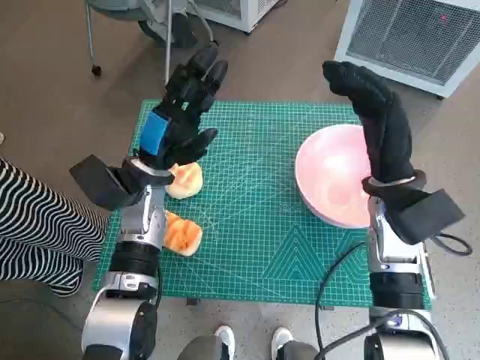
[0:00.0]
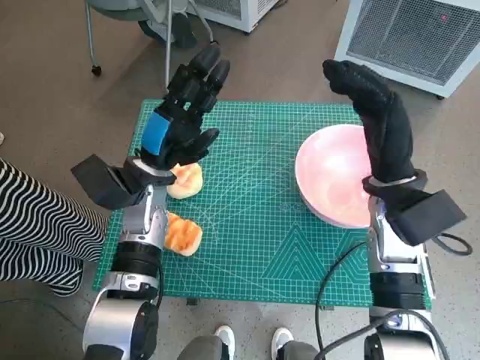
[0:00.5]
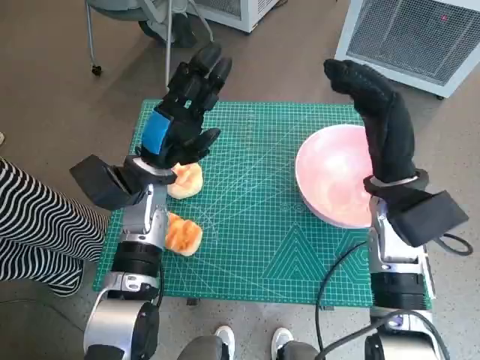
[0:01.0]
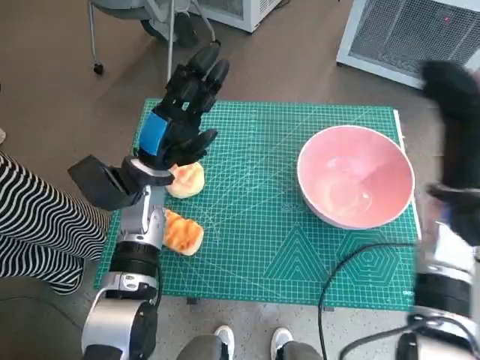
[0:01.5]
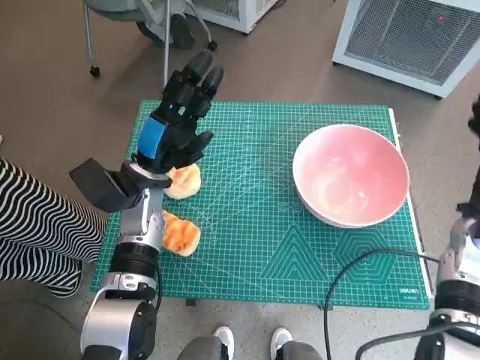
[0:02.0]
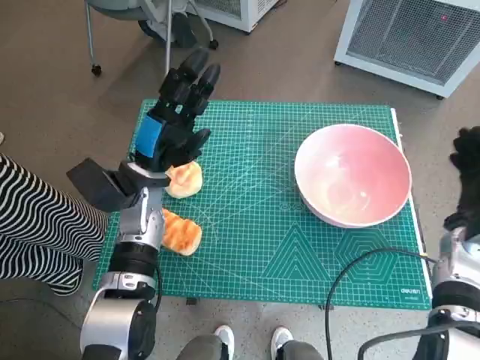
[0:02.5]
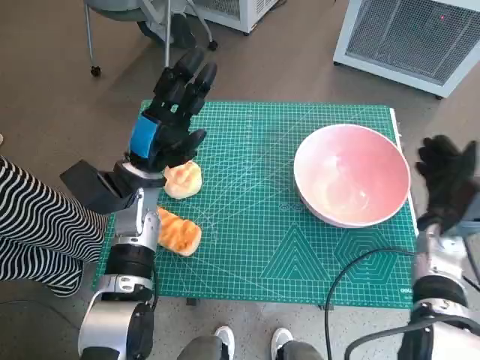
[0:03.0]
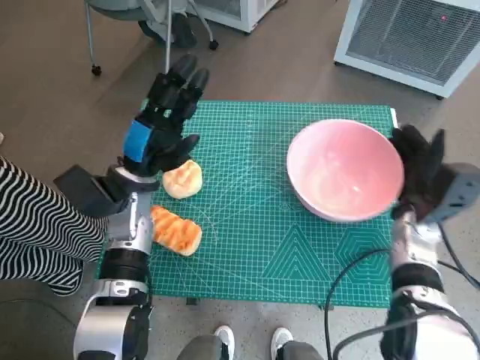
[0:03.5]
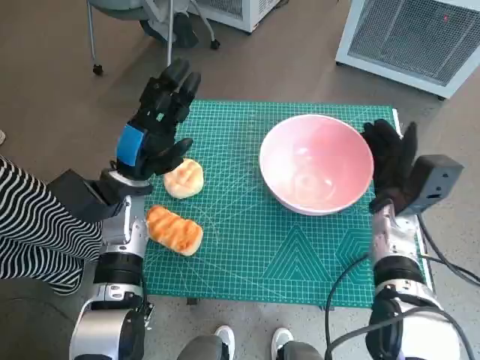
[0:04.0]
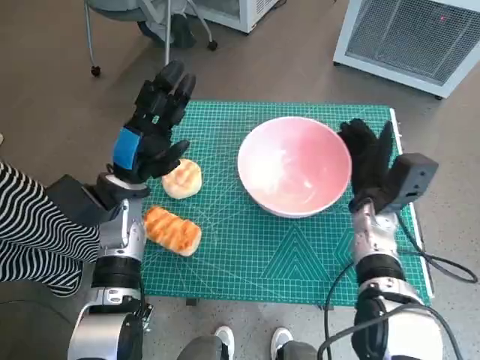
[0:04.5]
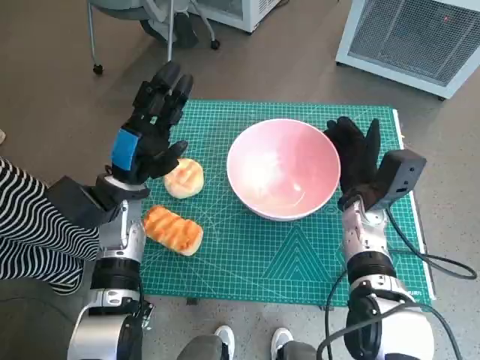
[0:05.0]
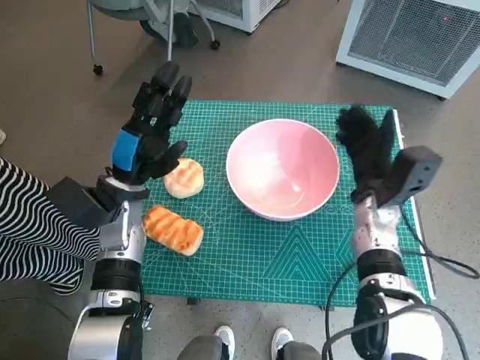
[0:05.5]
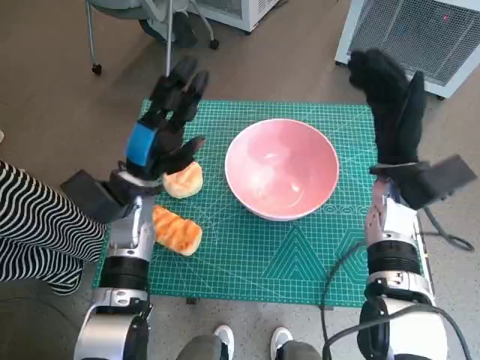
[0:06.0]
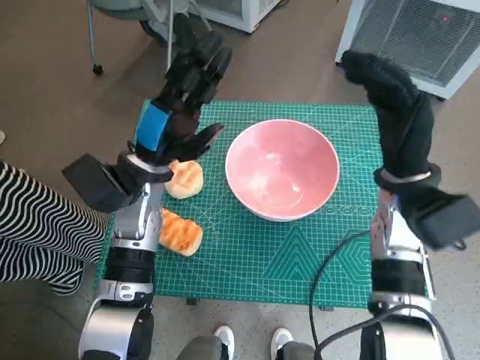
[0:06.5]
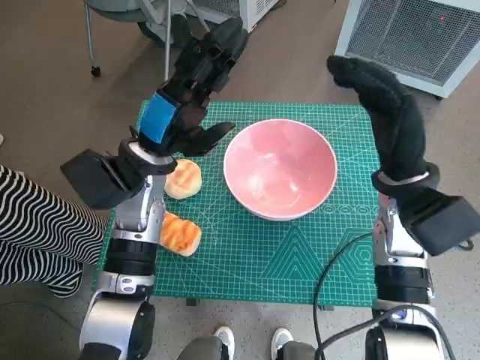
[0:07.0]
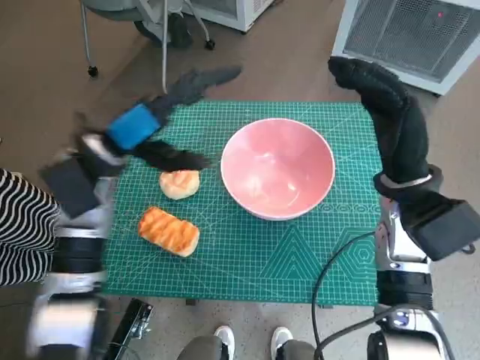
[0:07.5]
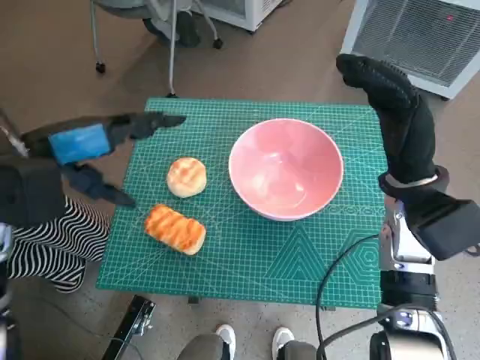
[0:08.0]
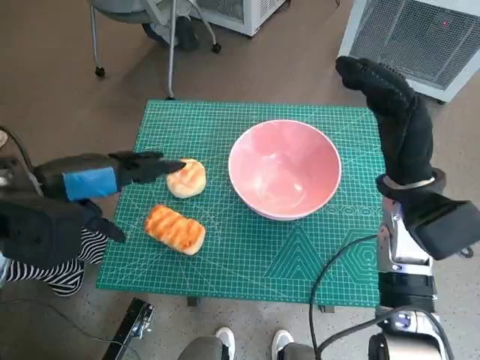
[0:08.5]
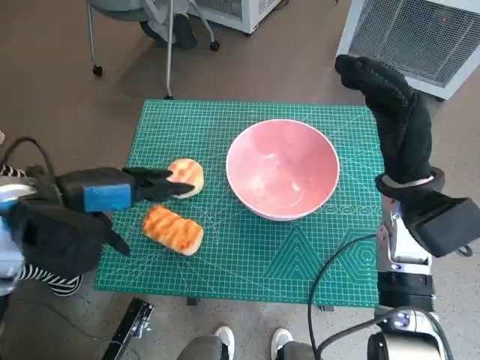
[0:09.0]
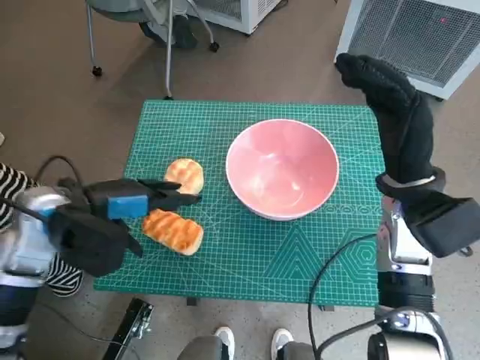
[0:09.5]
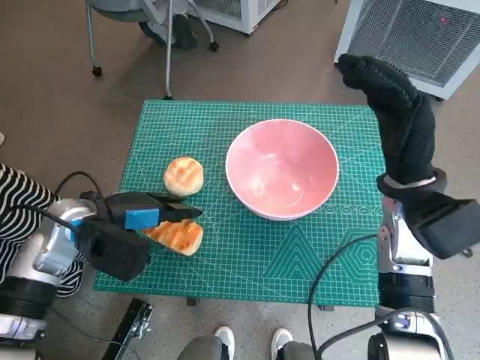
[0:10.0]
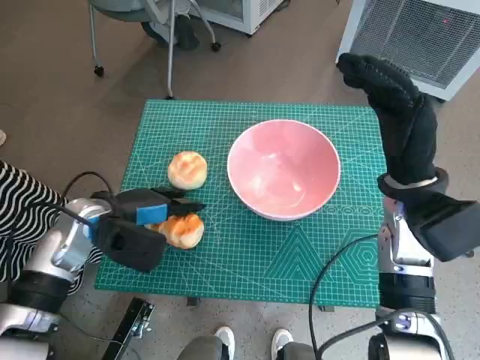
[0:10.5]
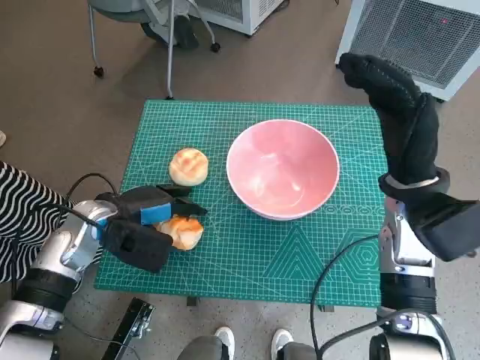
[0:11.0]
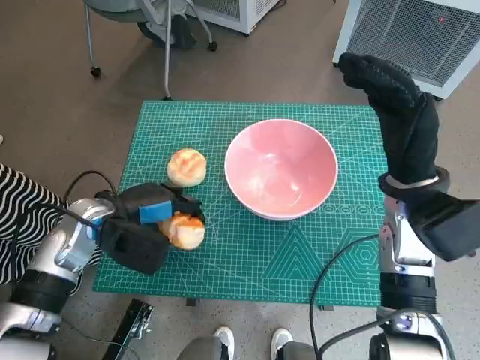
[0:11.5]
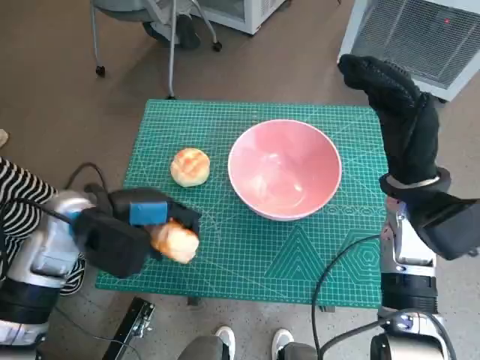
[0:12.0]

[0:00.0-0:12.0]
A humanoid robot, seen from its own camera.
Task of the whole recording: Push the bowl into the center of the table and put the bread into the bowl.
Step, 0:00.0 to 0:05.0: Move the pink bowl to the center of table with right hand.
Step, 0:06.0 to 0:11.0: Grasp the long bread with left hand.
0:02.0 to 0:04.0: The right hand moves to the left, about 10 cm.
0:04.0 to 0:06.0: The right hand goes approximately 5 cm upward.
0:06.0 to 0:08.0: The right hand shifts by approximately 5 cm; the left hand heads upward and to the left, covering roughly 15 cm.
0:08.0 to 0:10.0: The left hand travels downward by about 15 cm.
0:10.0 to 0:12.0: The hands move only a little.

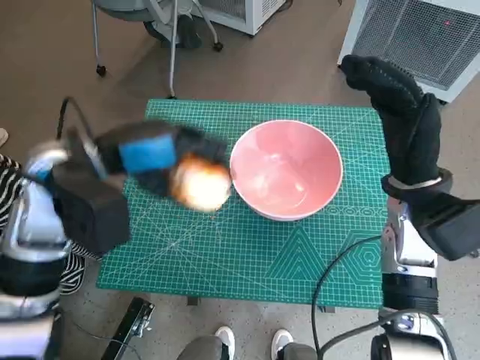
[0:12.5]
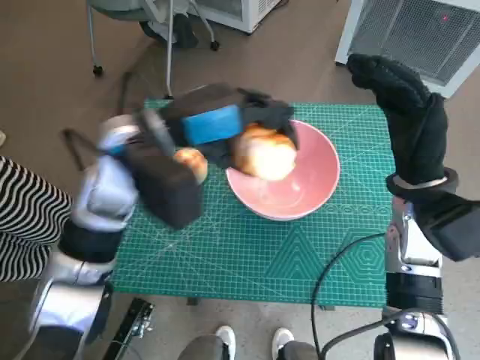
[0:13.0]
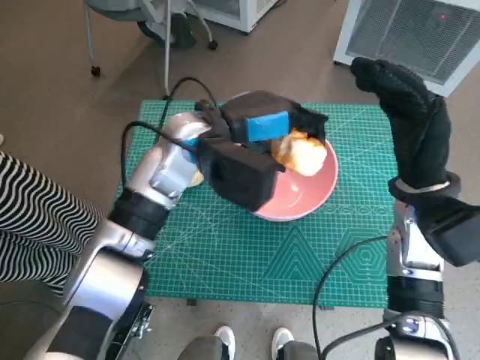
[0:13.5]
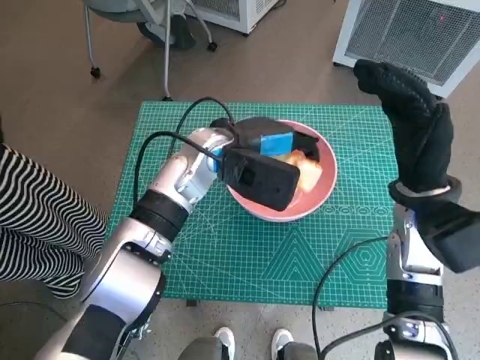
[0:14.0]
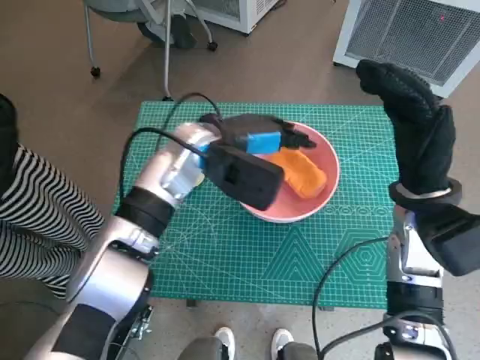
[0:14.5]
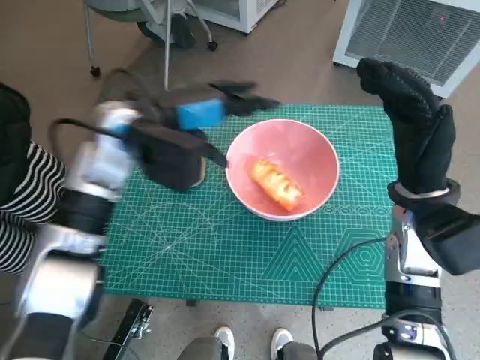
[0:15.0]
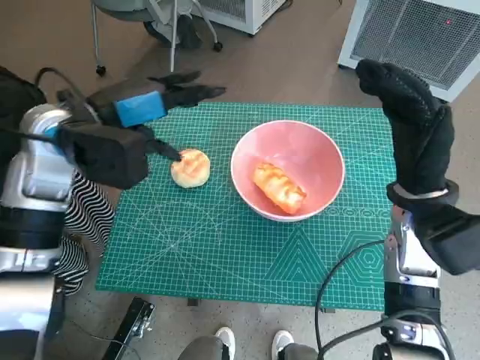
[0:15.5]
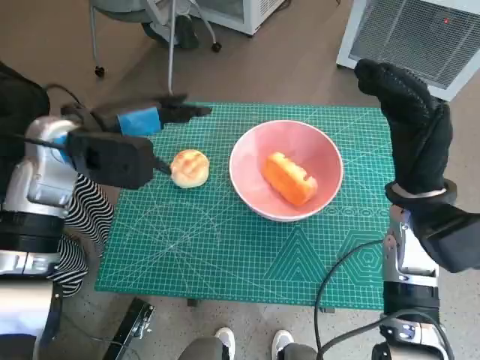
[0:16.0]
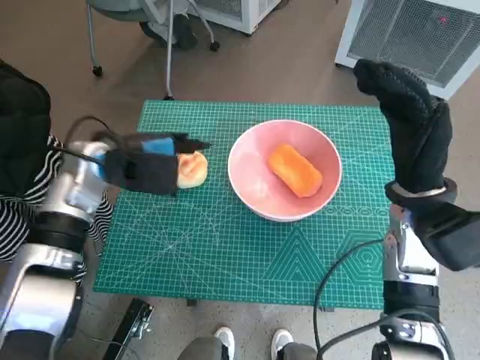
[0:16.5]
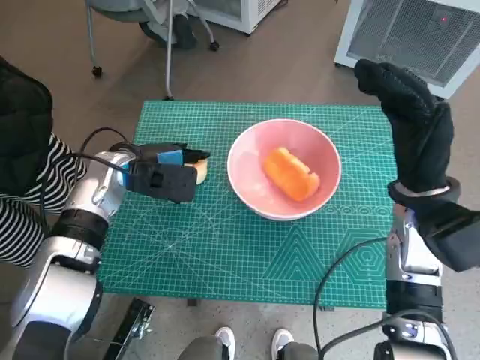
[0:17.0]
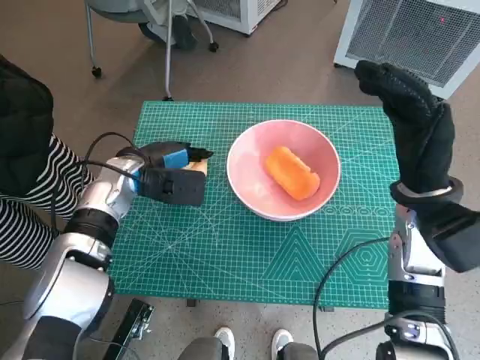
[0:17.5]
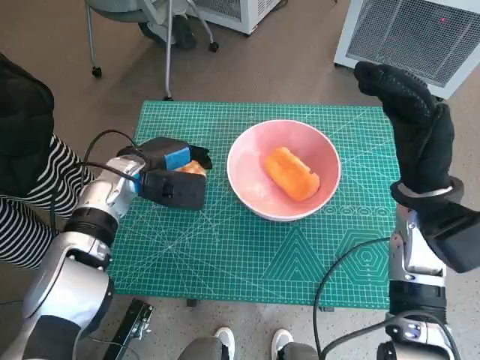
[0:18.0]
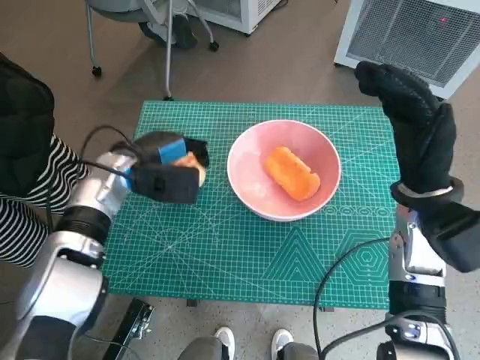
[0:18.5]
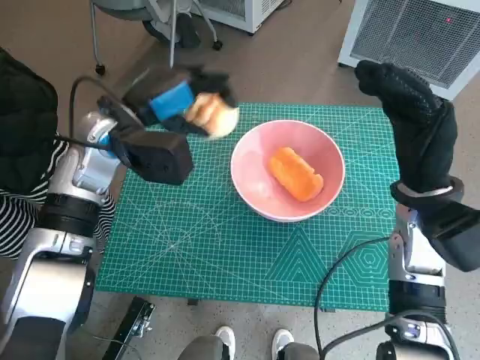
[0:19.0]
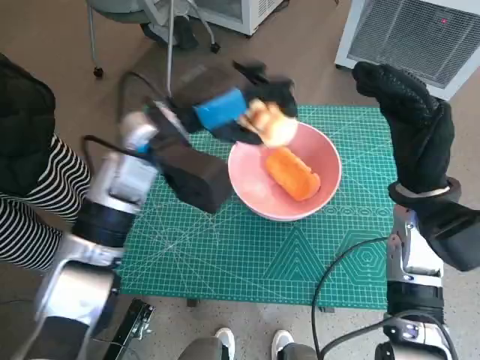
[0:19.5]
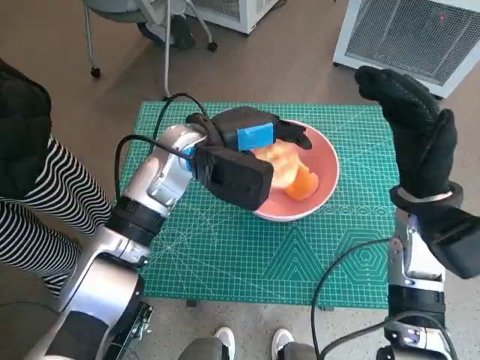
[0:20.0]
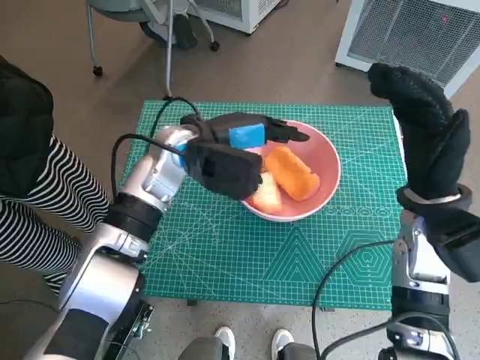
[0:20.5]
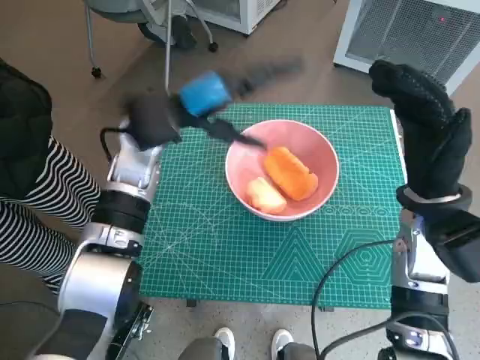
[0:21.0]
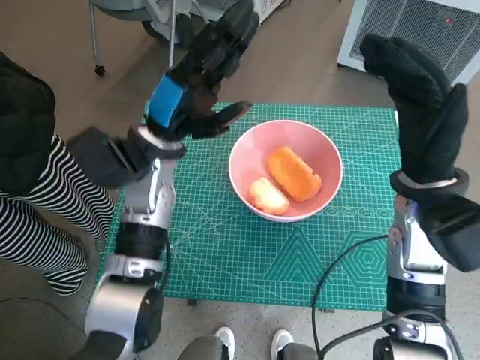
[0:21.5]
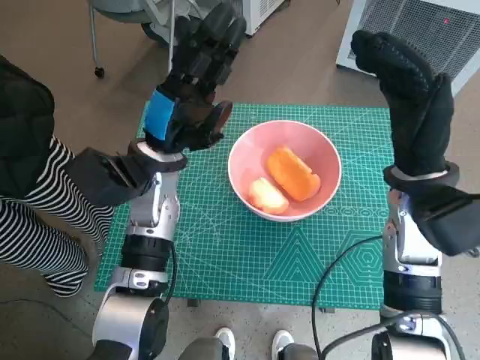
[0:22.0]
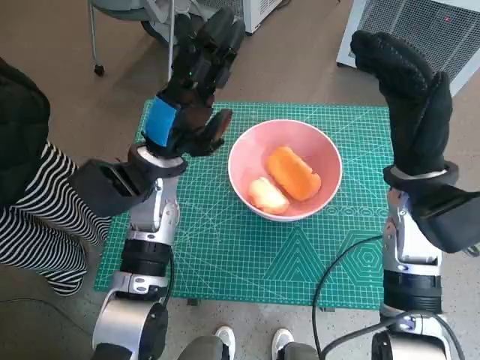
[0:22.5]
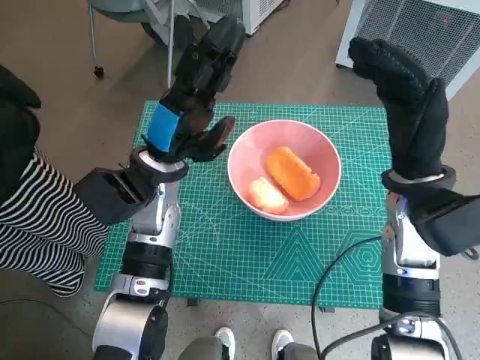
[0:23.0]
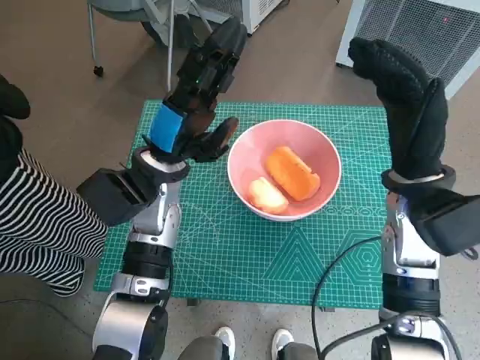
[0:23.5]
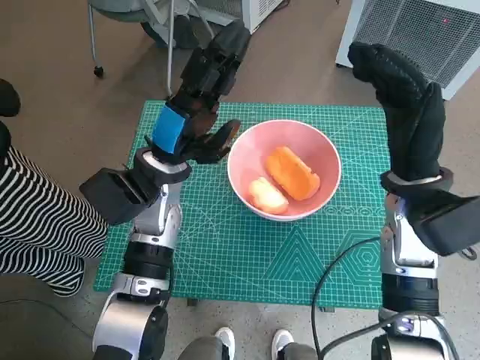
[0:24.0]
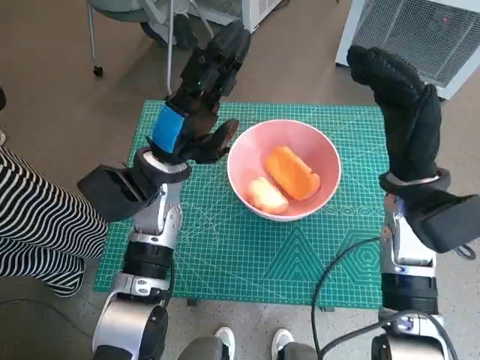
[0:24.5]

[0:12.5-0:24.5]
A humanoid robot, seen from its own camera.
Task of the whole recording: Push the bowl into the center of the table and put the bread into the bowl.
Step, 0:12.5 to 0:14.5: Place the long bread in pink bowl with left hand.
Step, 0:15.0 to 0:18.0: Grasp the round bread with left hand.
Step, 0:18.5 to 0:20.5: Place the round bread in pink bowl with left hand.
0:12.5 to 0:14.5: The left hand heads to the right, forward and downward, covering about 15 cm.
0:14.5 to 0:16.5: The left hand goes approximately 15 cm to the left.
0:16.5 to 0:18.5: The left hand moves approximately 5 cm.
0:18.5 to 0:20.5: The left hand goes about 10 cm to the right and upward.
0:20.5 to 0:22.5: The left hand changes place by roughly 5 cm.
